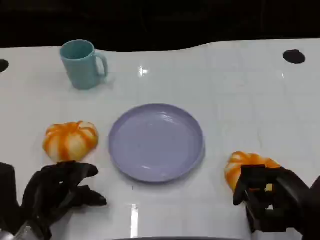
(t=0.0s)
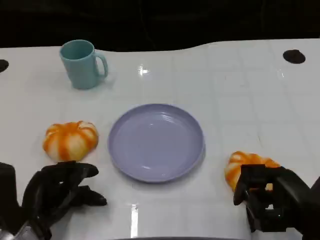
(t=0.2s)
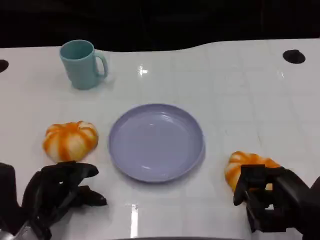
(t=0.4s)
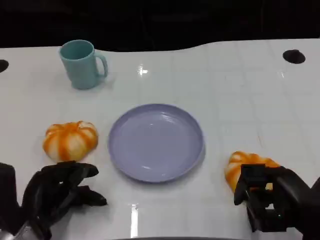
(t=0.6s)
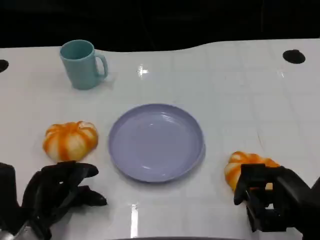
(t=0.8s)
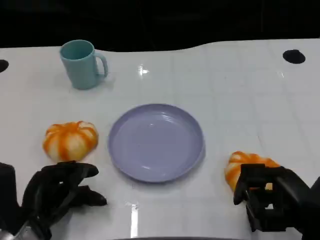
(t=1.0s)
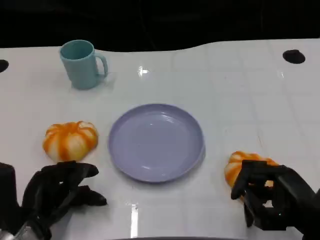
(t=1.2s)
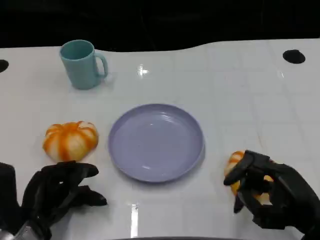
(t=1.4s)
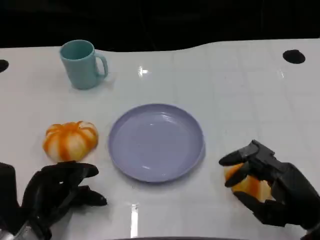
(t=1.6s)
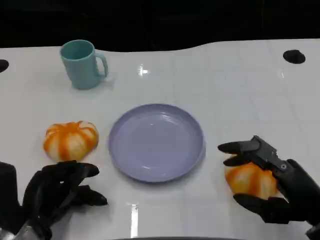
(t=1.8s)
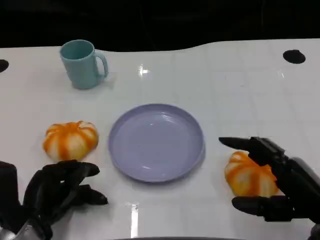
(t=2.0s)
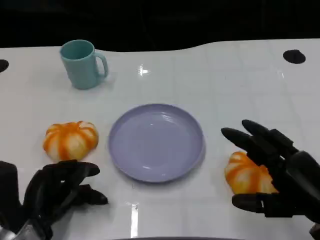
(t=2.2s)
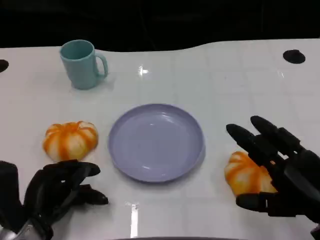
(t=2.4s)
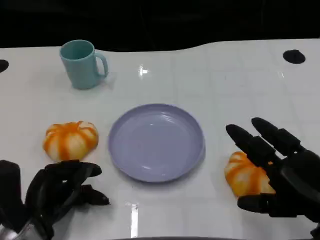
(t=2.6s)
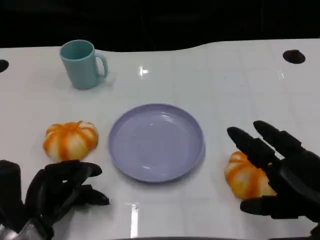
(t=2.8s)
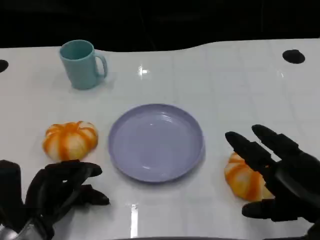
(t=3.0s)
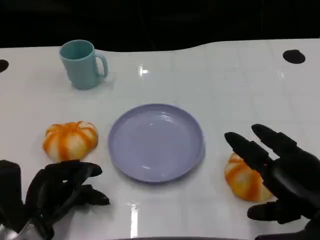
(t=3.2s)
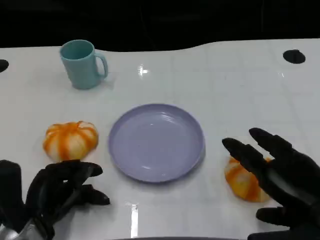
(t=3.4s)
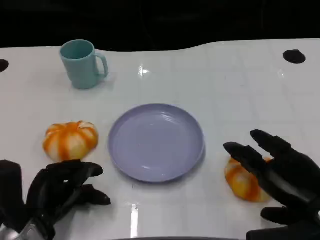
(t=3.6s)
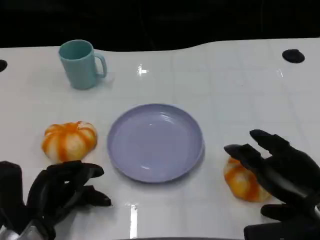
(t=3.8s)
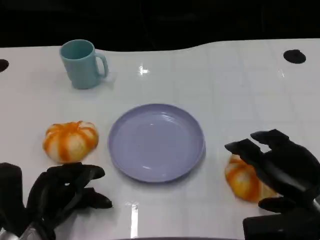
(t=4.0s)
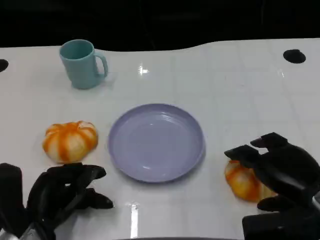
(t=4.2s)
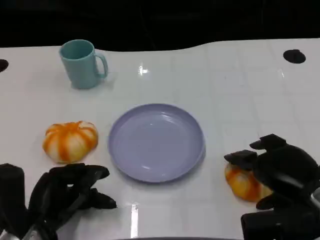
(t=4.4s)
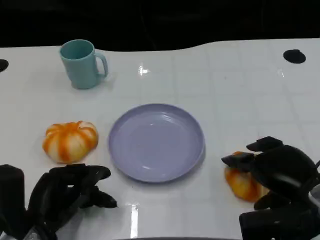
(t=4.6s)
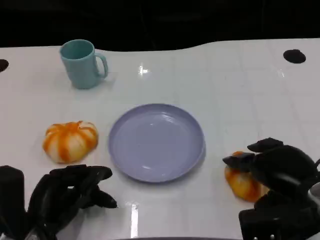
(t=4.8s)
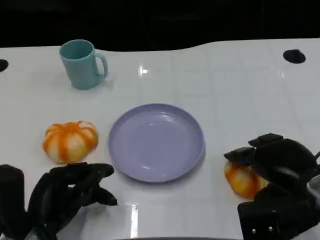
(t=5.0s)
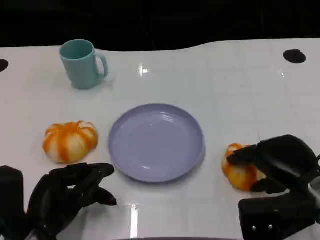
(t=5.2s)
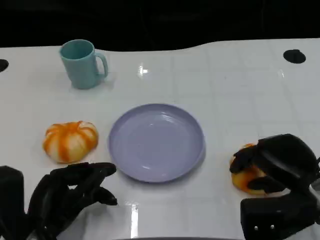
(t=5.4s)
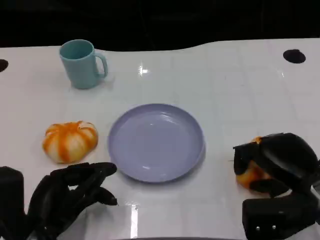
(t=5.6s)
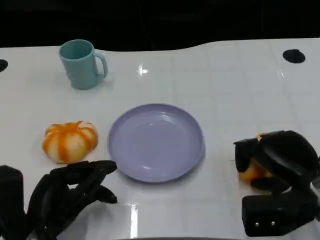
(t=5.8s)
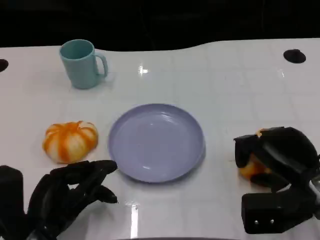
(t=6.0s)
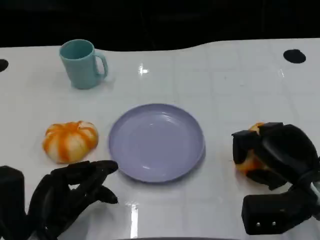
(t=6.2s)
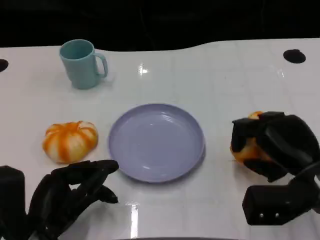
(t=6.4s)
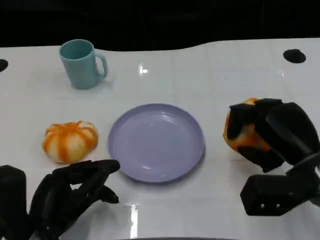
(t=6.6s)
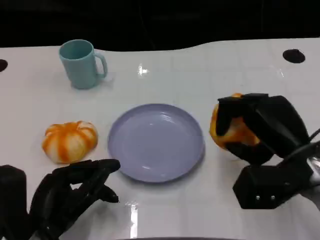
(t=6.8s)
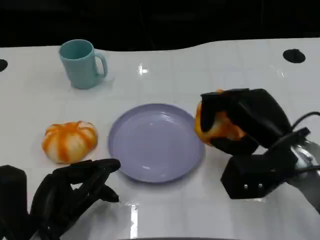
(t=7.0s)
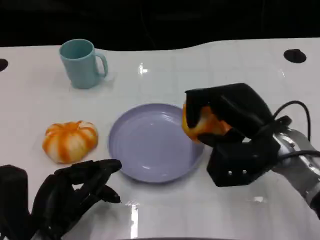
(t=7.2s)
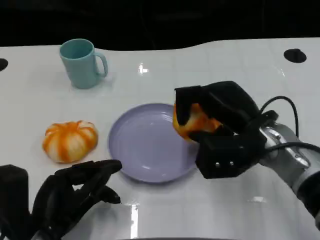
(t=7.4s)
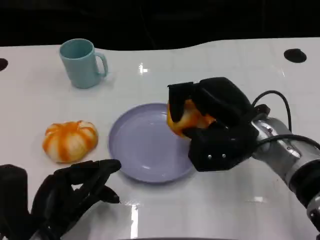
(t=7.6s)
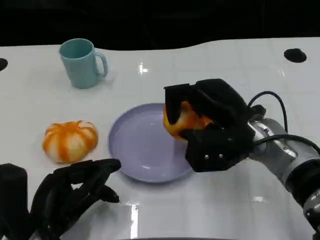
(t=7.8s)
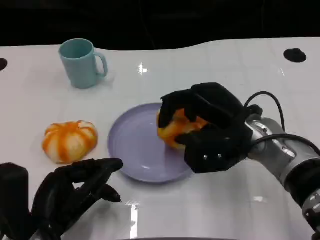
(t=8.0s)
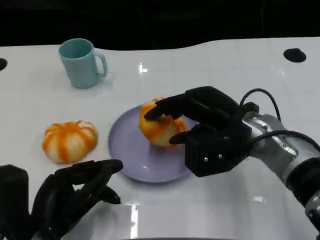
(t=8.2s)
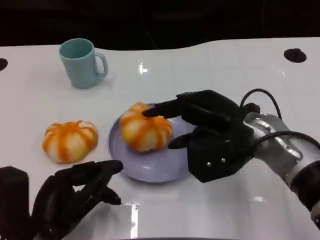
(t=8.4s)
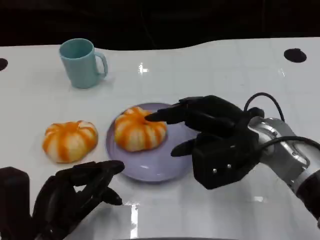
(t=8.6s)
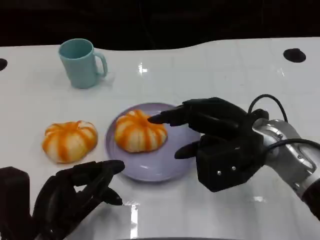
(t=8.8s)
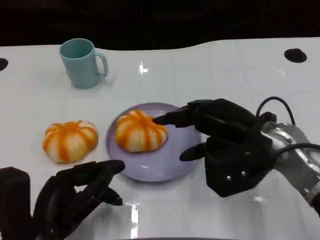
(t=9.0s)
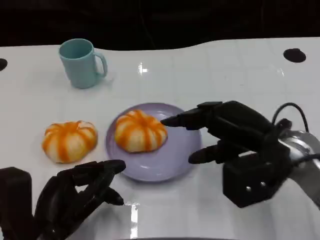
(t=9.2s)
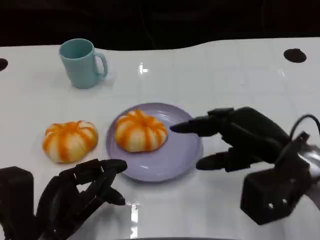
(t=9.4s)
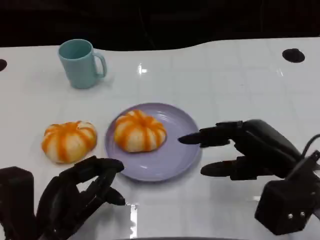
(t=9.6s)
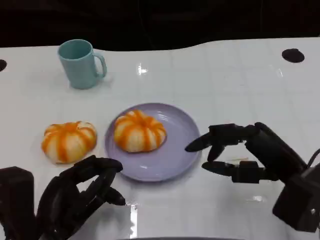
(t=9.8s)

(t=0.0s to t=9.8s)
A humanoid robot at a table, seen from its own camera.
Task of the whole recording: Grasp the bread from the table and place it into the plate.
t=0.0s - t=1.4s: The hands make only small movements.
t=2.8s - t=4.2s: The hands move only a little.
t=4.2s - t=5.6s: The hands move only a little.
t=5.6s - t=7.0s: The right hand changes place by some 5 cm.
t=7.0s - t=8.4s: The right hand moves some 5 cm.
t=8.4s - t=9.8s: The right hand moves backward and to the right, roughly 10 cm.

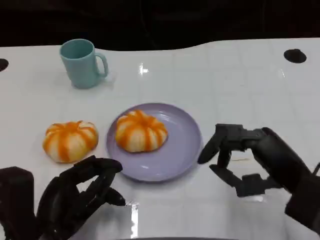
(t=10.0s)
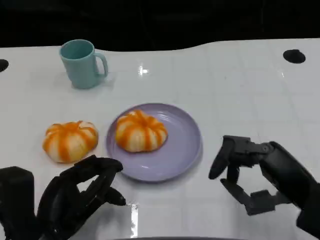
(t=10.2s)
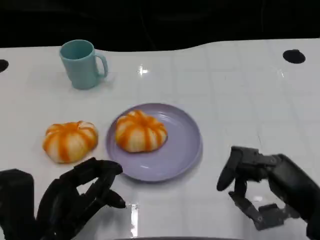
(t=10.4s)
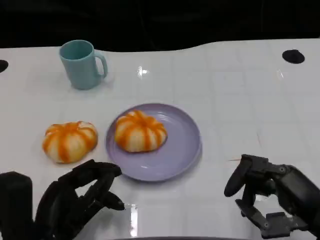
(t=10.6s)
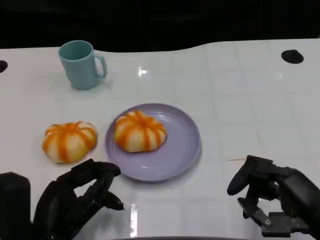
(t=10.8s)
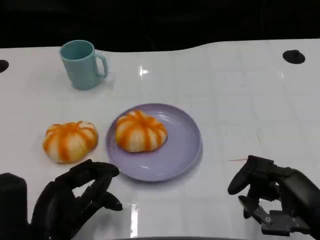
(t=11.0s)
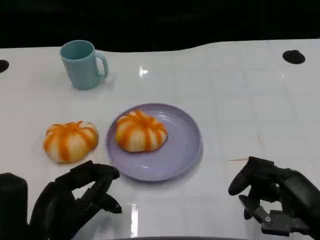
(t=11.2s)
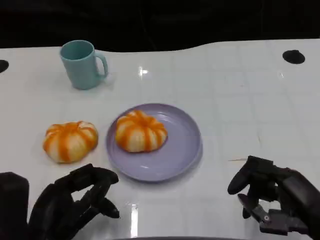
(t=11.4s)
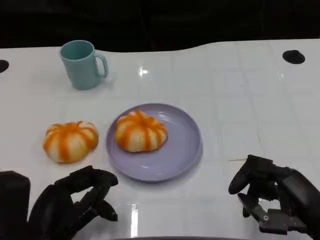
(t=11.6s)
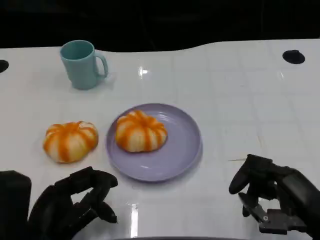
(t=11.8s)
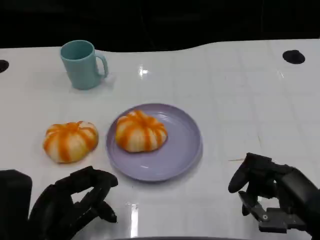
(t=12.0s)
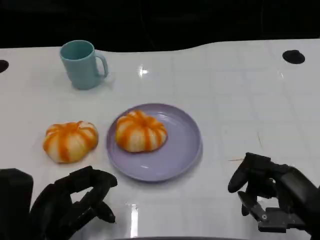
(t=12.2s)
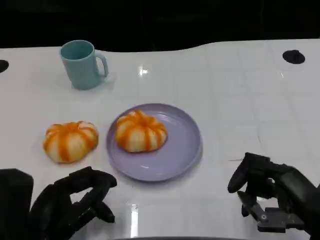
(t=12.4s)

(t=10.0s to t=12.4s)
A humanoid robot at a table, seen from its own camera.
Task of the whole recording: Grasp the bread from the table and place it into the plate.
t=10.0s - t=11.2s: The right hand moves about 5 cm.
t=11.2s - t=12.4s: The hands move only a little.

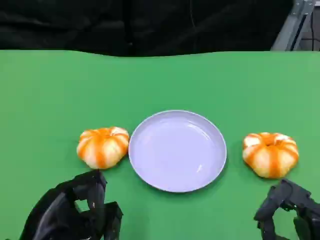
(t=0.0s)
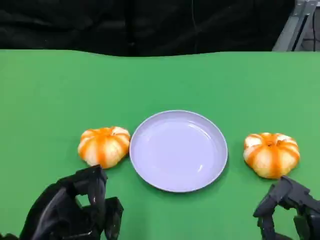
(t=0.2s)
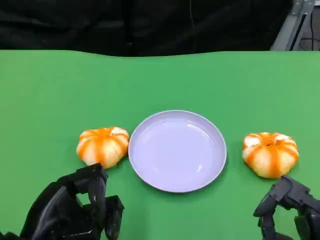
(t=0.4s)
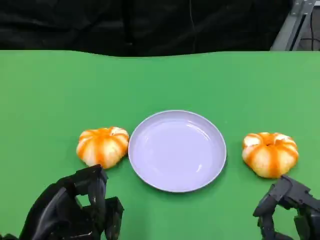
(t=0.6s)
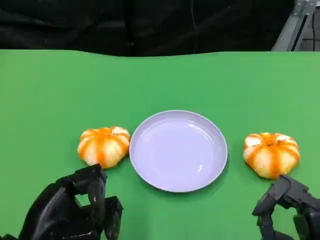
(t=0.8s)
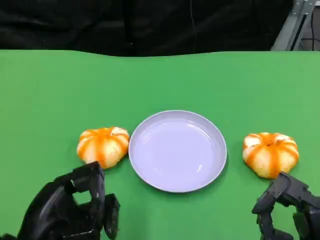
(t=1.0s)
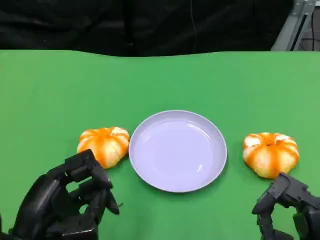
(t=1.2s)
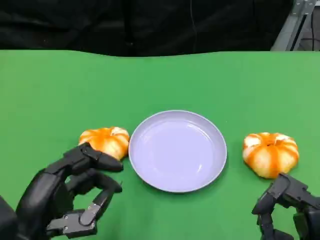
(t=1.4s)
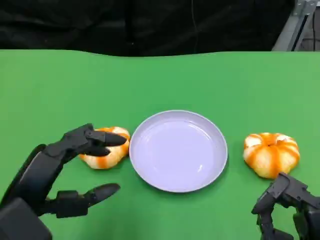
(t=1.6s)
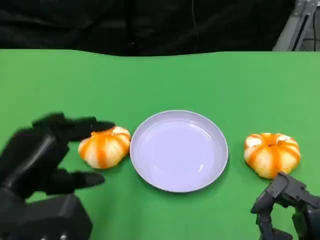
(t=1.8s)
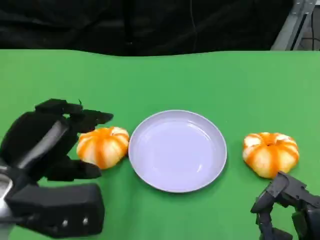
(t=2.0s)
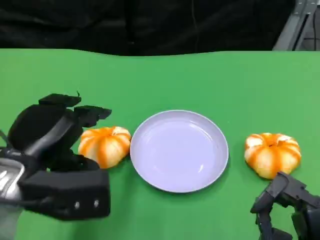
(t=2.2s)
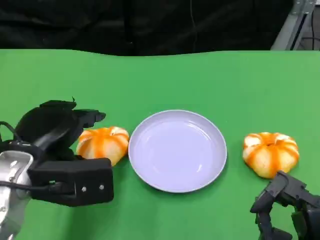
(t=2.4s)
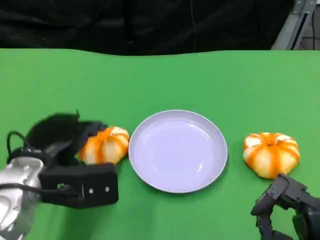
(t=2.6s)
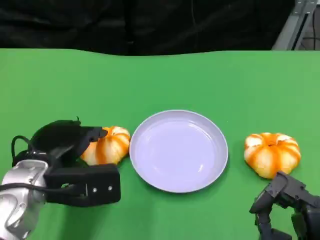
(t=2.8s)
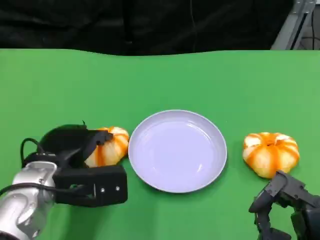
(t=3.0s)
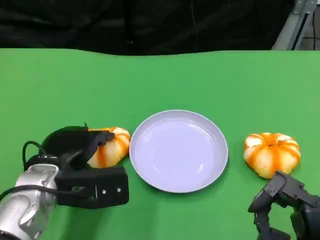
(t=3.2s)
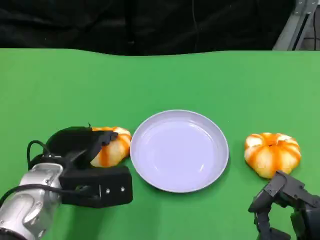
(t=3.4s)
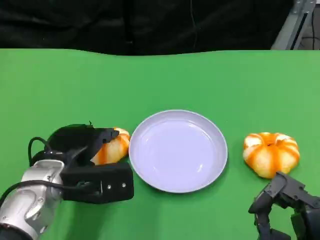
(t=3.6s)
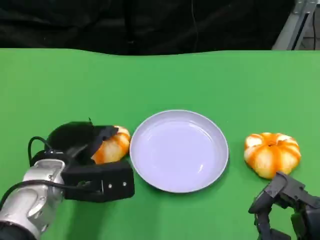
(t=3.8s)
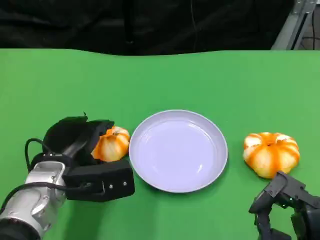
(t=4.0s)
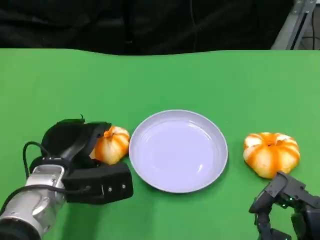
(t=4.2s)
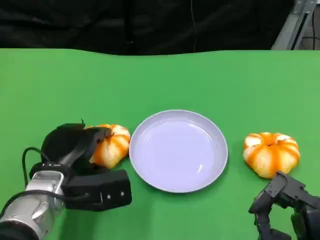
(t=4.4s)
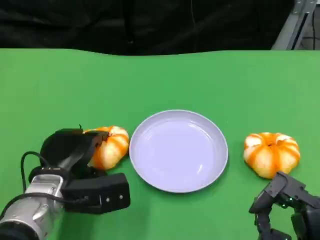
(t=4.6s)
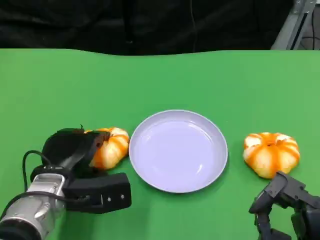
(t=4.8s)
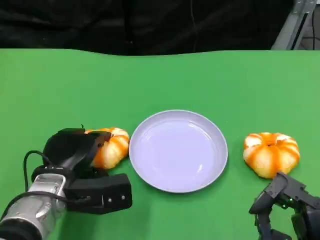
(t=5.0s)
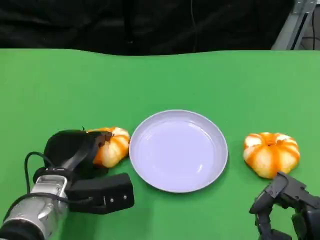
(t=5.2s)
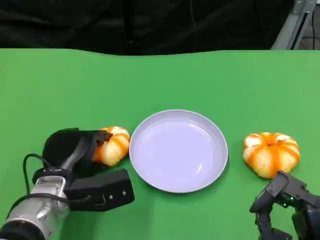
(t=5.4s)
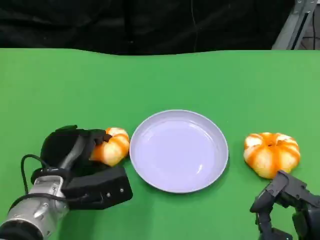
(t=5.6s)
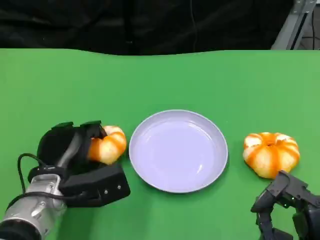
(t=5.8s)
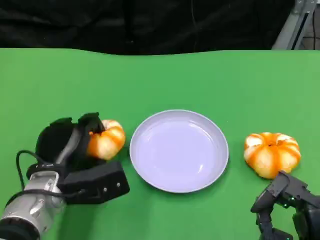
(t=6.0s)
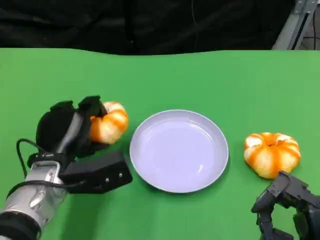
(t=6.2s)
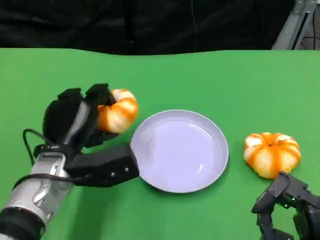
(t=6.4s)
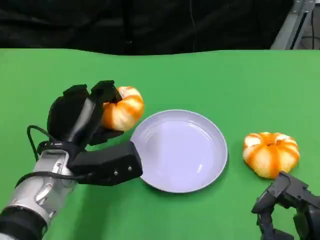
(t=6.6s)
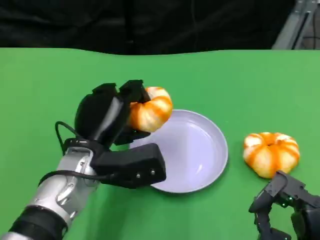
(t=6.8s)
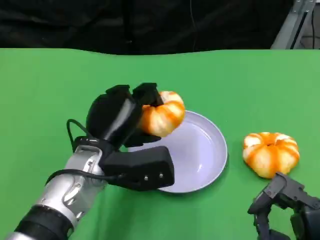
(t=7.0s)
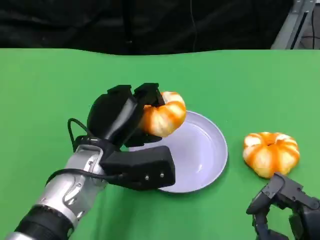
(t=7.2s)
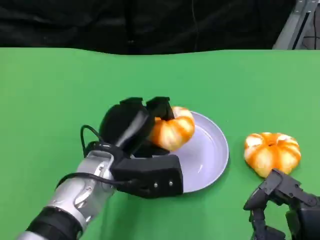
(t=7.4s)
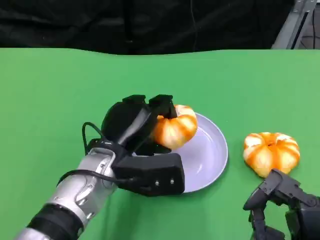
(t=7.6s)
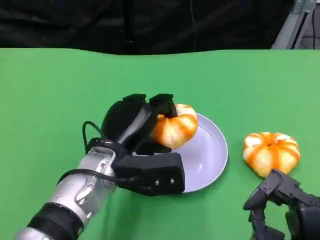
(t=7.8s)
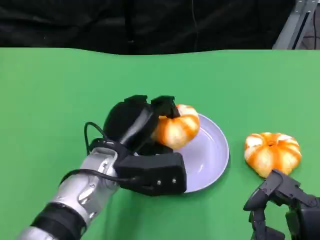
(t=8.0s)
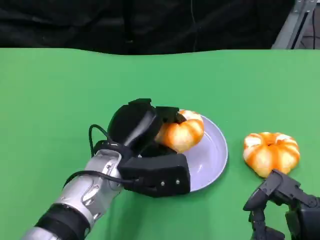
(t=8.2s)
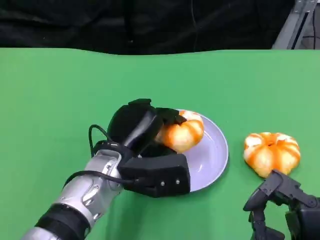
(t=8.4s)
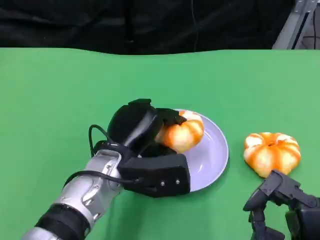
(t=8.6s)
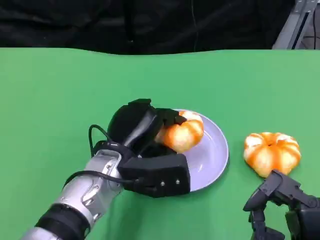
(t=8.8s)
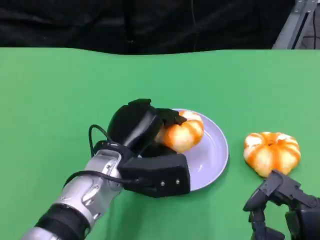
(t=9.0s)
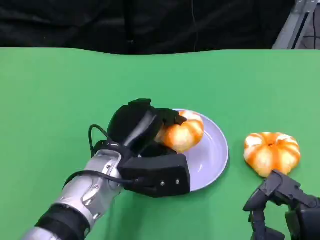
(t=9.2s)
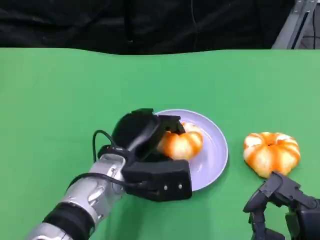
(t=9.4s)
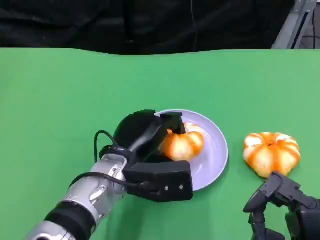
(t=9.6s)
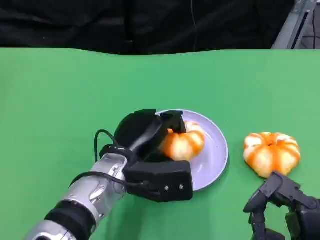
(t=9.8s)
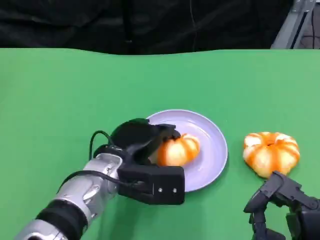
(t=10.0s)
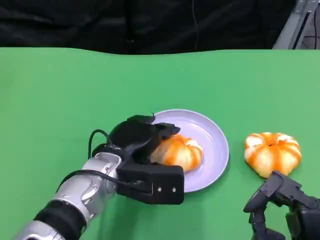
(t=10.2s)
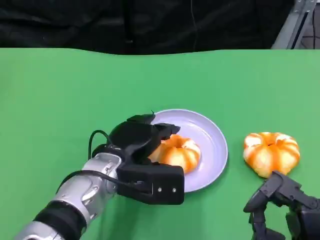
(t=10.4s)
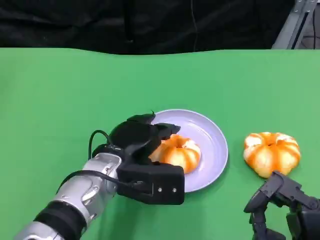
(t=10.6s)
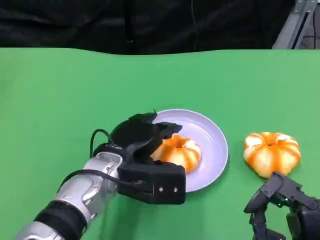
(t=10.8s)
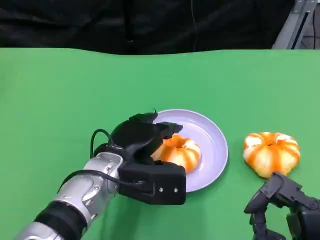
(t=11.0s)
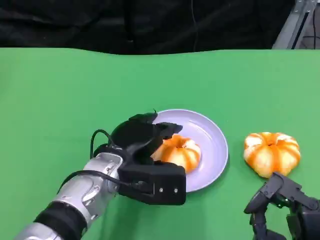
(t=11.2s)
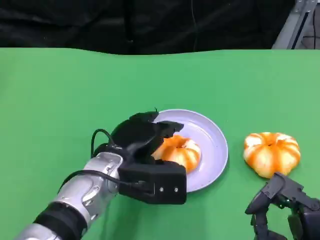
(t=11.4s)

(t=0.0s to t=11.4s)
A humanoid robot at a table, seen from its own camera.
Task of the whole recording: Grasp the bread from the table and place it into the plate.
t=1.4s - t=2.8s: The left hand shifts some 10 cm forward.
t=2.8s - t=5.6s: The hands stay close to where they were, moving slightly.
t=5.6s - t=7.2s: The left hand shifts some 10 cm upward and to the right.
t=8.6s - t=10.0s: The hands make only small movements.
t=10.0s - t=11.4s: Neither hand changes place.
